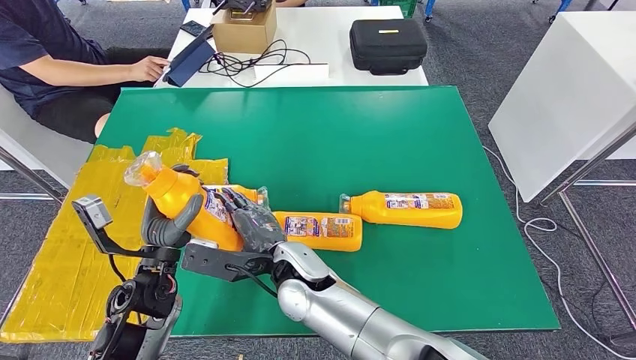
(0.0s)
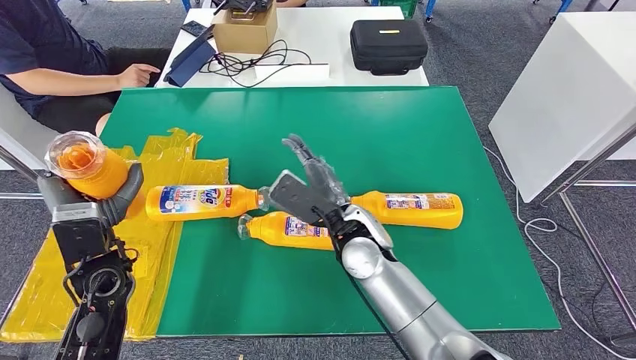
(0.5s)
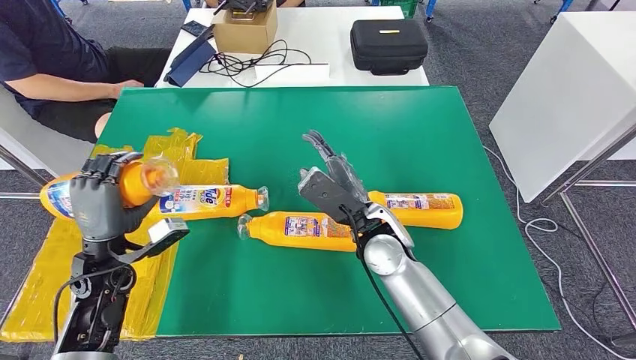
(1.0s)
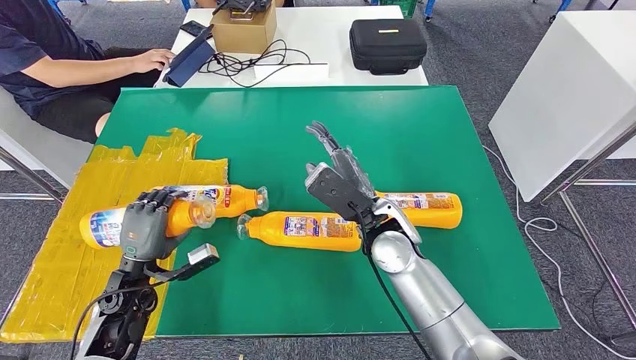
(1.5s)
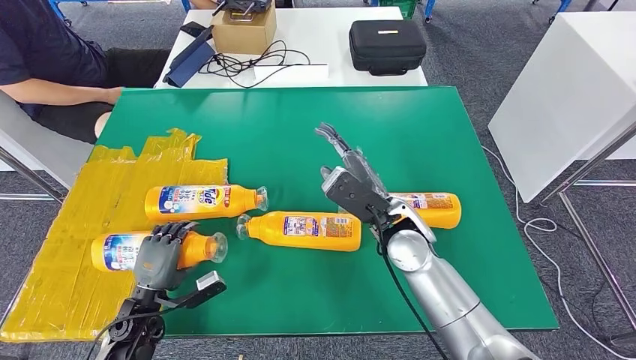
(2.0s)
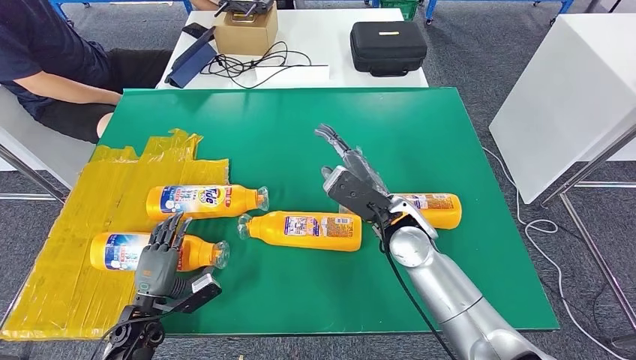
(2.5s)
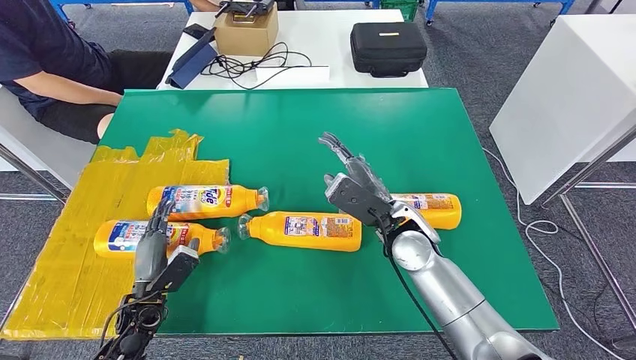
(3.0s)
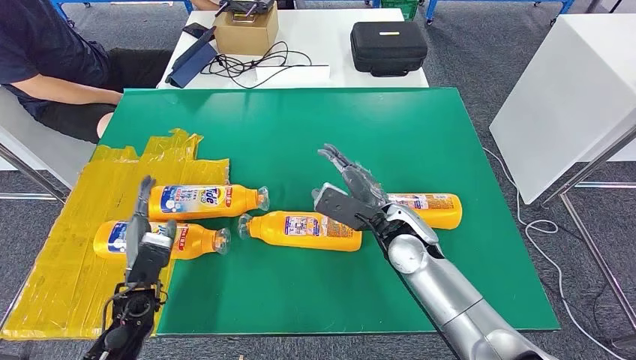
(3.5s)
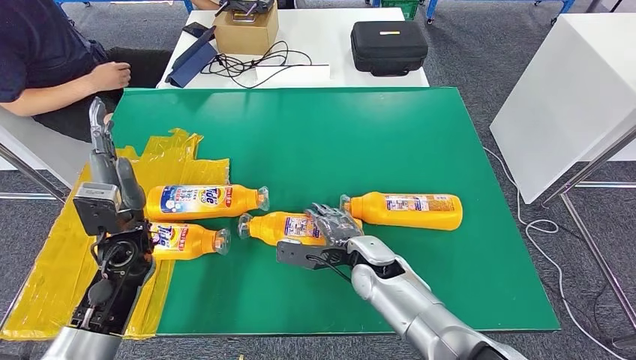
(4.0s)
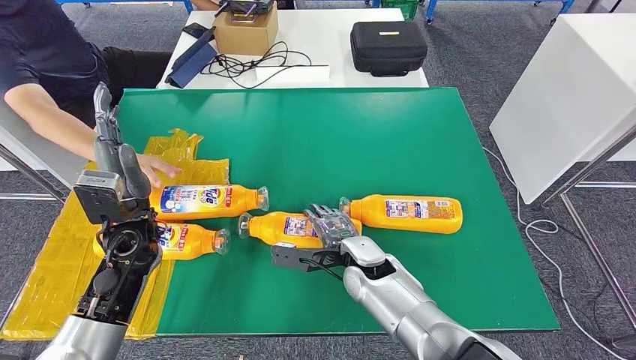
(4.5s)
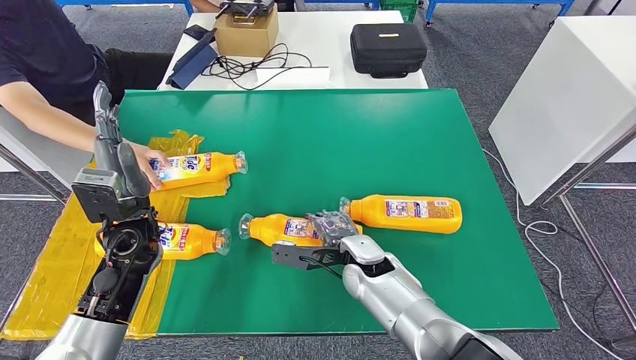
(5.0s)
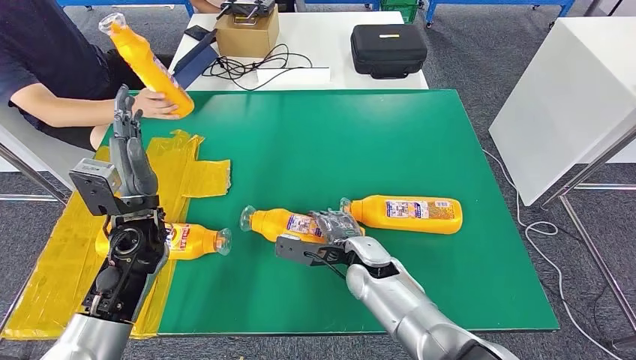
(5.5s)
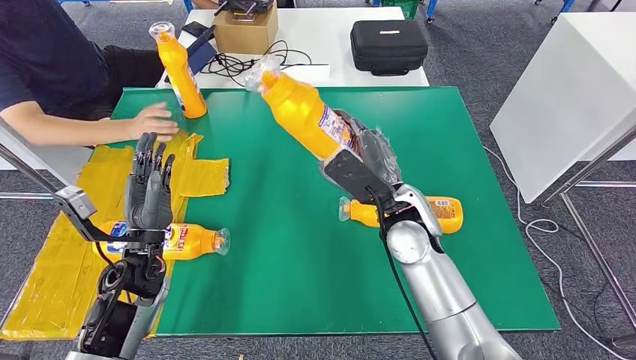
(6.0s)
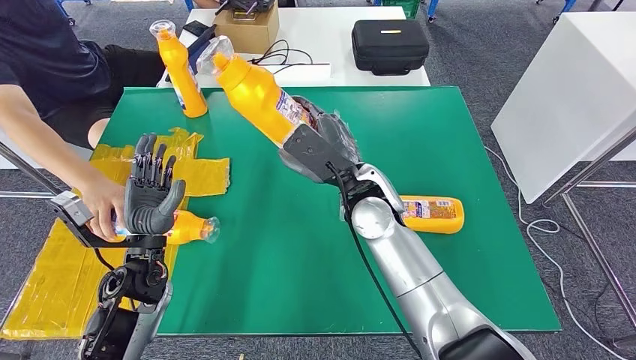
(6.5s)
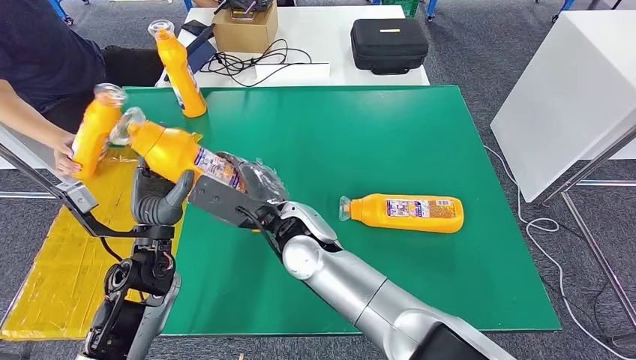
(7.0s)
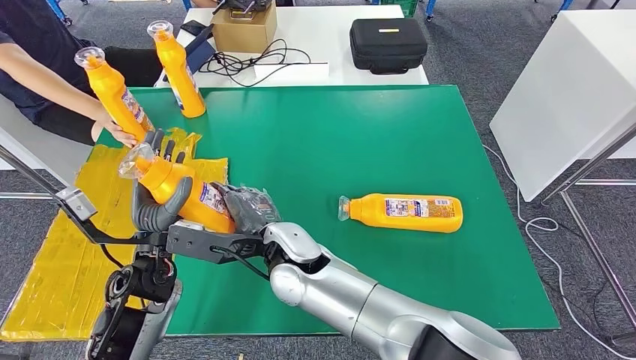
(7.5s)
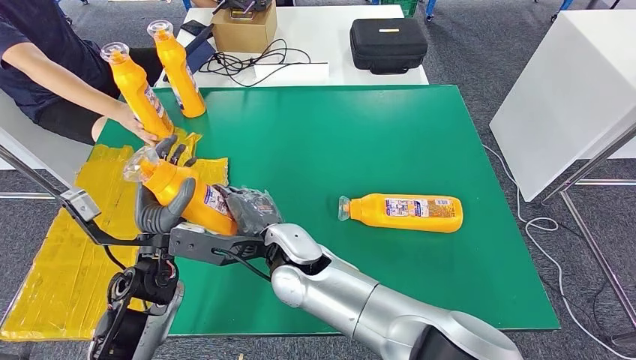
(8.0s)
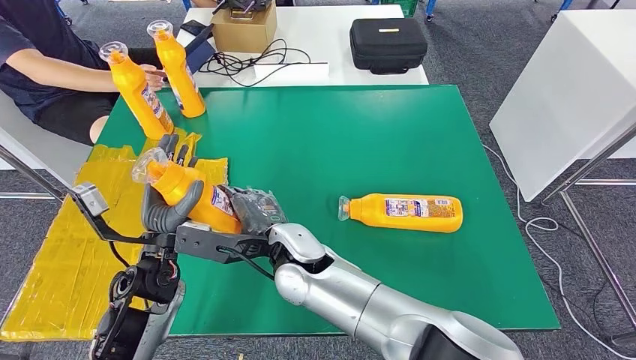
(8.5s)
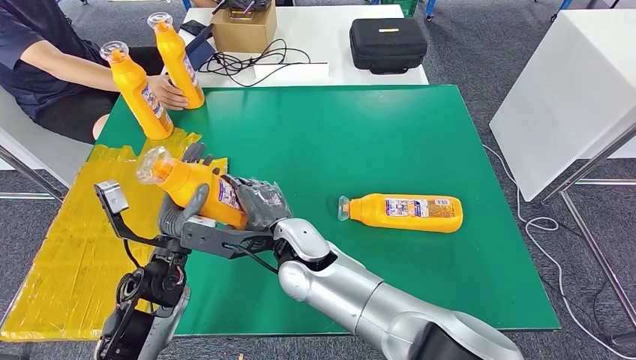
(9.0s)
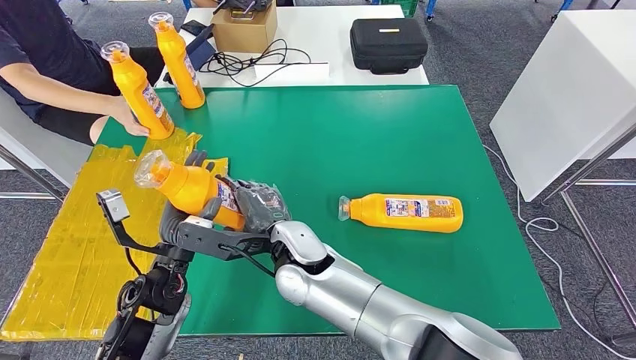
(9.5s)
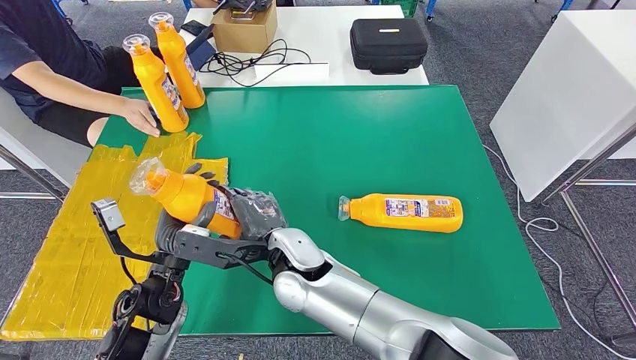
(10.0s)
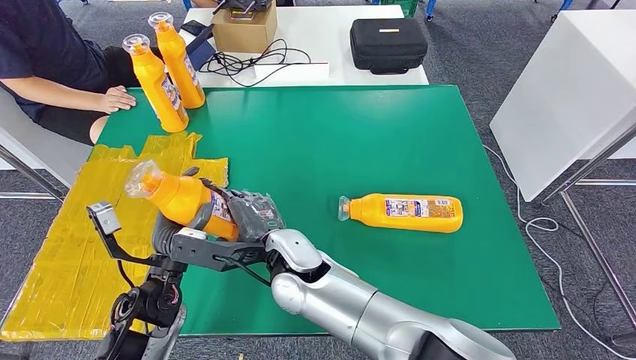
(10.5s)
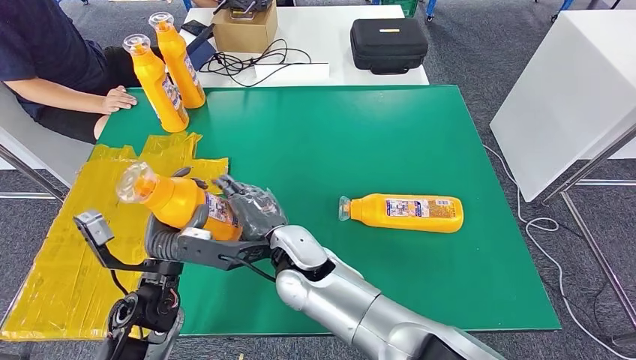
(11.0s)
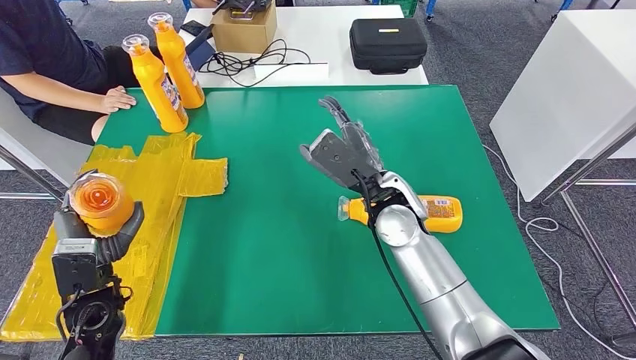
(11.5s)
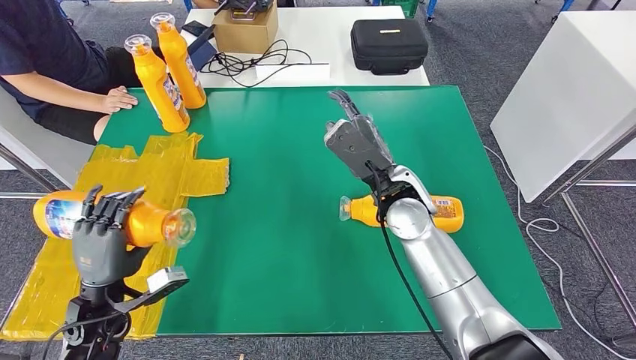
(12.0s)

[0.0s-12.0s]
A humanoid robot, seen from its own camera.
Step, 0.0s to 2.0s: Flip the fast-moving consumer goods bottle to the front side.
Step, 5.5s to 6.5s: Pick up the fast-moving consumer goods bottle from the table.
8.0s to 10.0s: The hands move only a little.

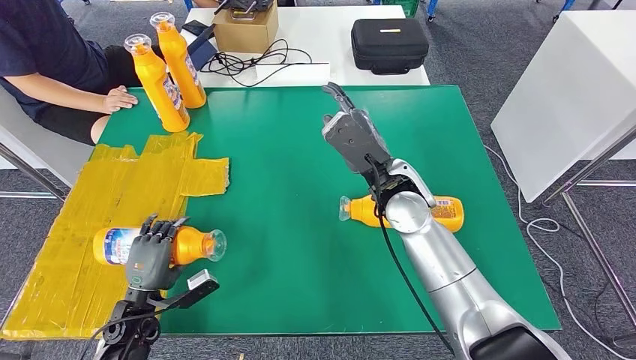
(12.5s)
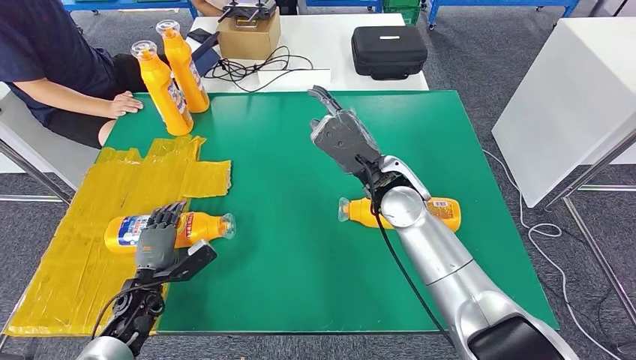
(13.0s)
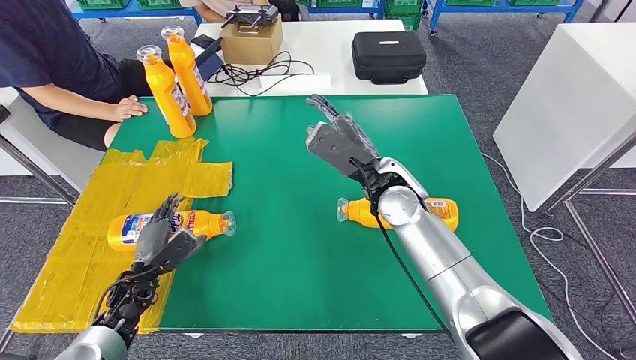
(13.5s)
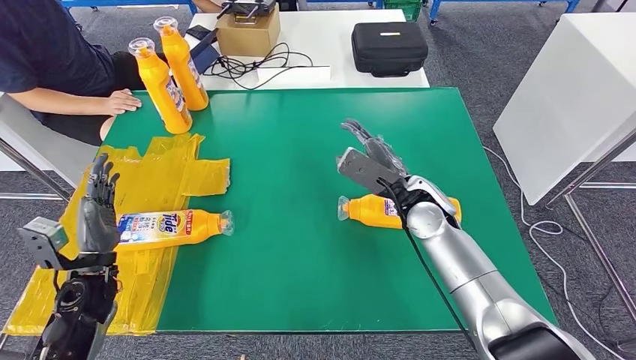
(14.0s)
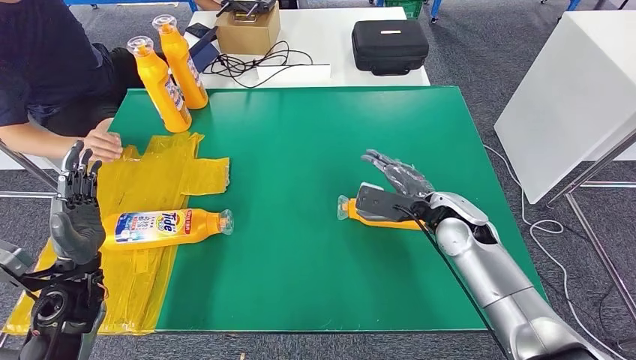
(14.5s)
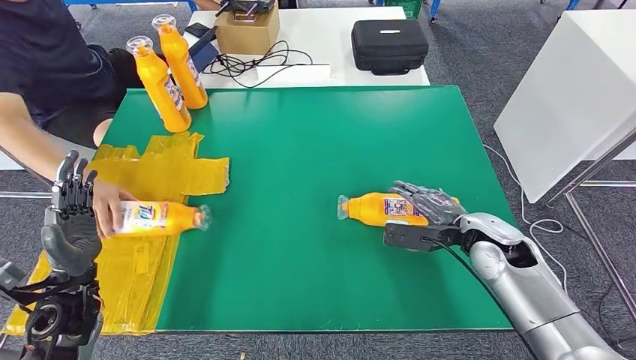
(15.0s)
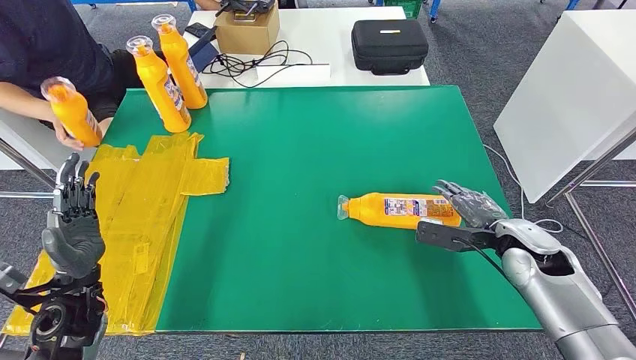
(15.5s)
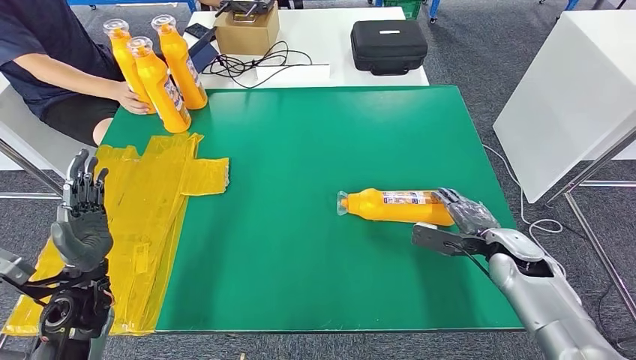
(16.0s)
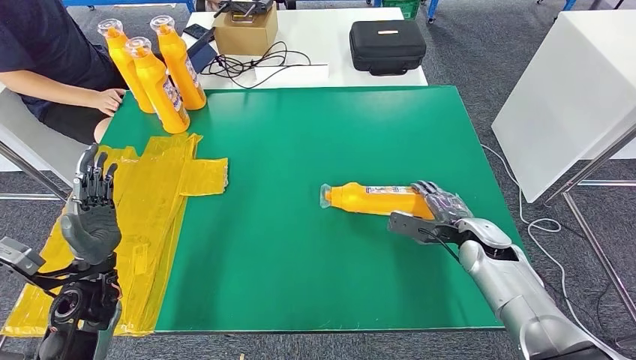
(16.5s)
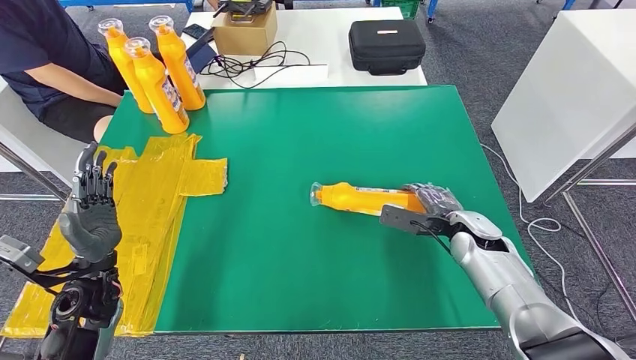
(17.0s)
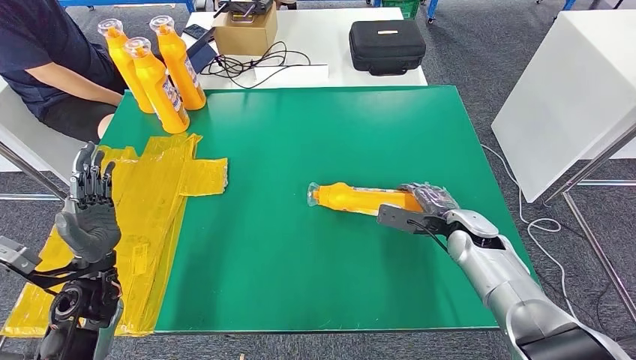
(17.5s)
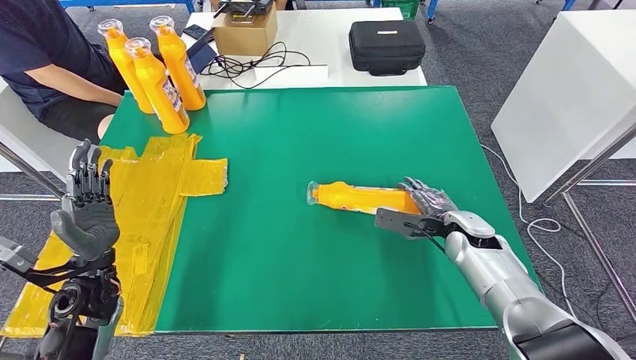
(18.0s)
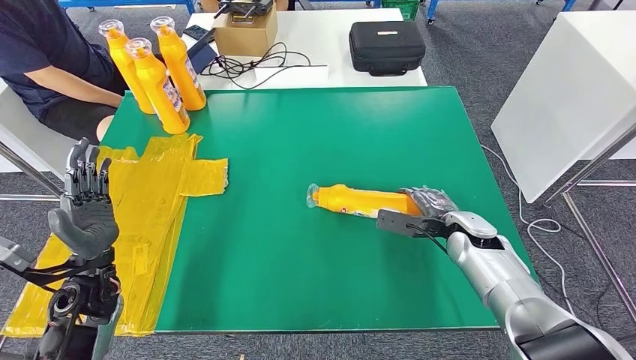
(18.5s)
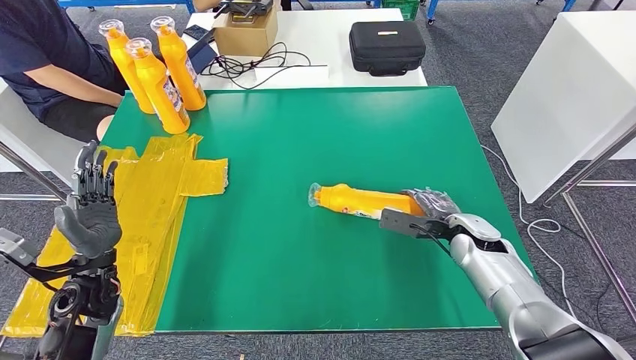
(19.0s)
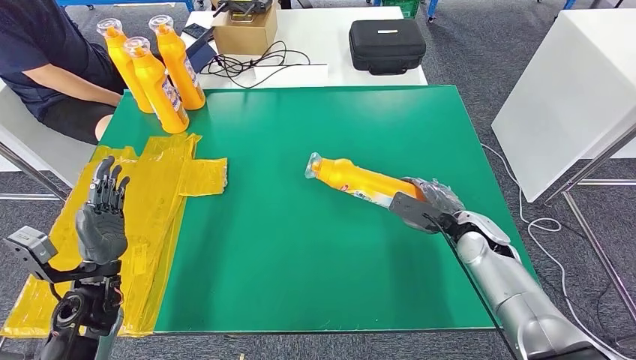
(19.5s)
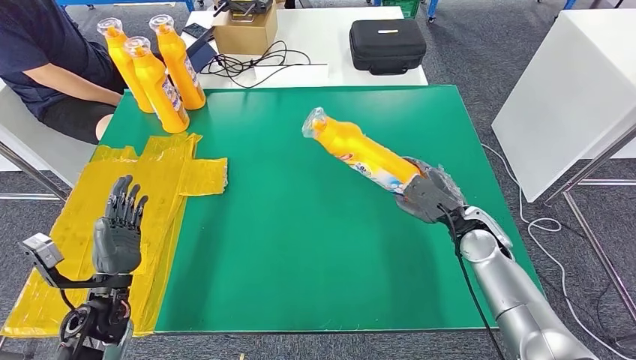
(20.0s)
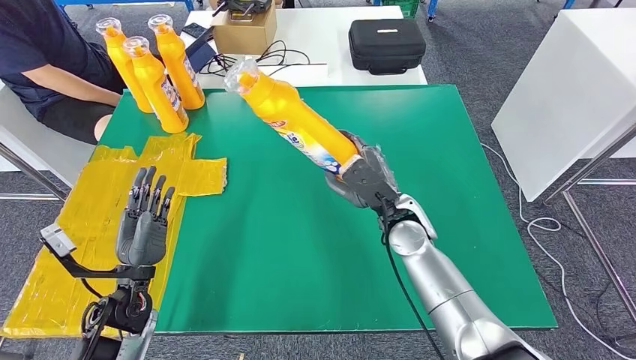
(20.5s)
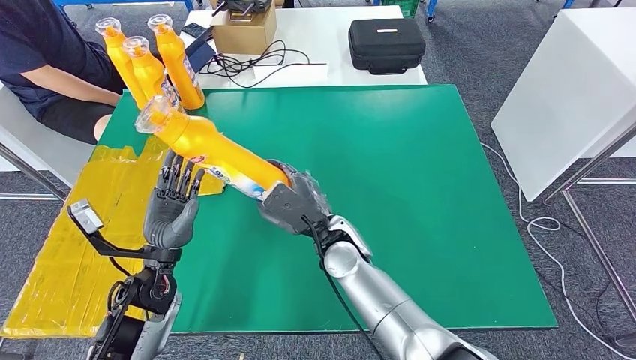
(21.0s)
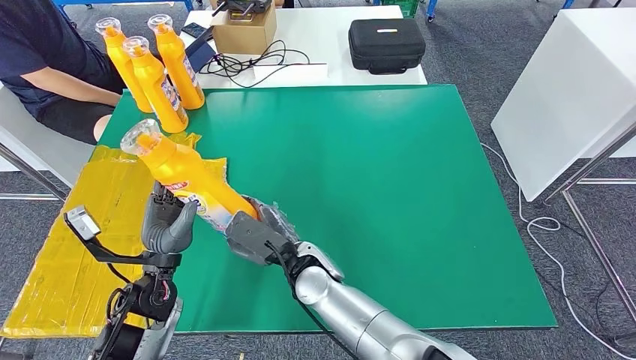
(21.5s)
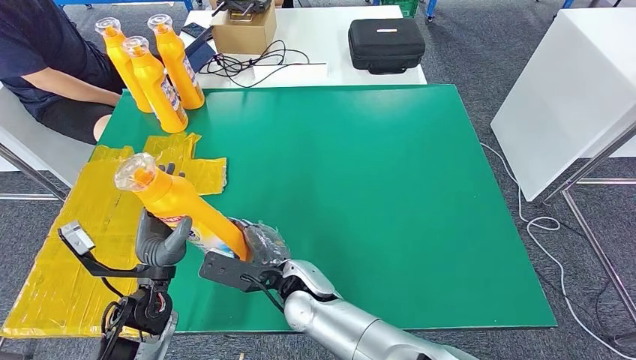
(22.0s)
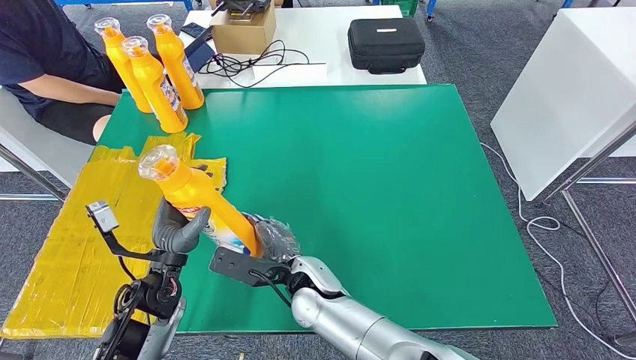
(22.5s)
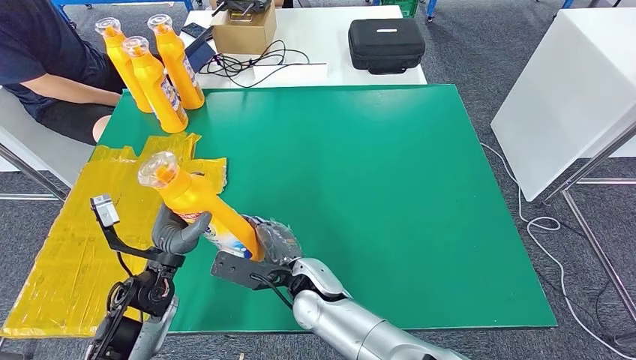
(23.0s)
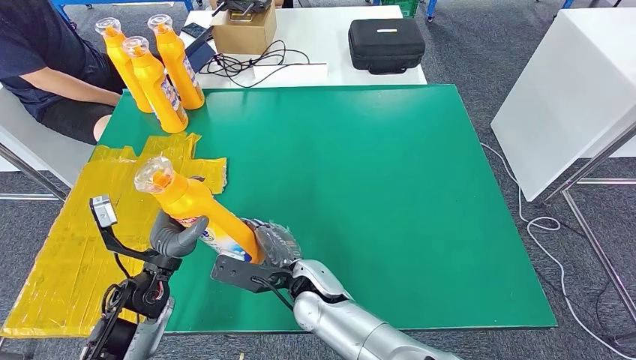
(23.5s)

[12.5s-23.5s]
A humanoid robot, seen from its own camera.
Step, 19.5s to 21.0s: Pick up the fast-moving consumer goods bottle from the table.
16.0s to 18.0s: The right hand shifts approximately 5 cm to the left.
18.0s to 20.0s: The left hand moves approximately 5 cm.
